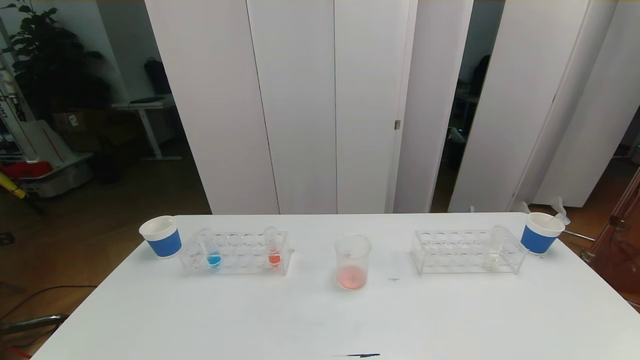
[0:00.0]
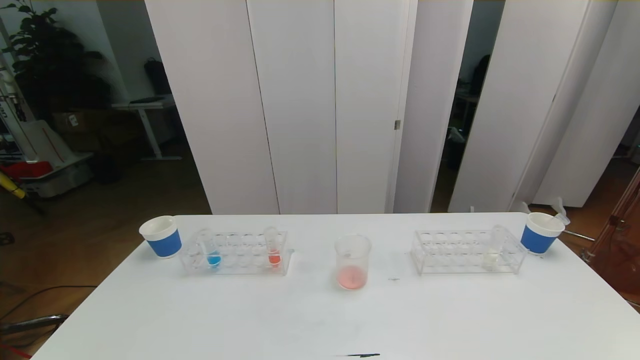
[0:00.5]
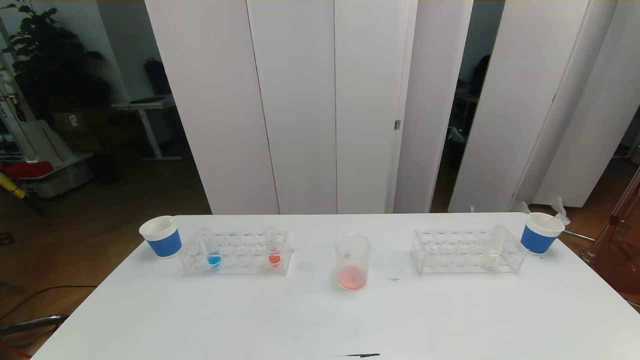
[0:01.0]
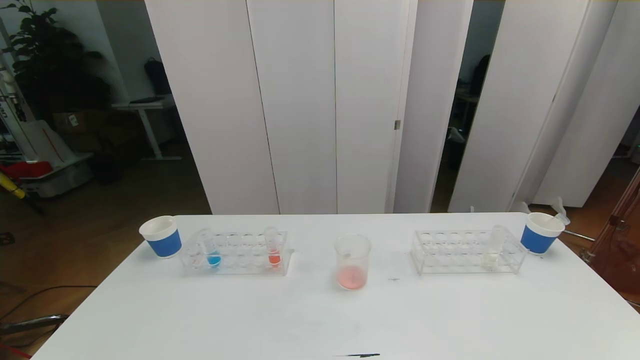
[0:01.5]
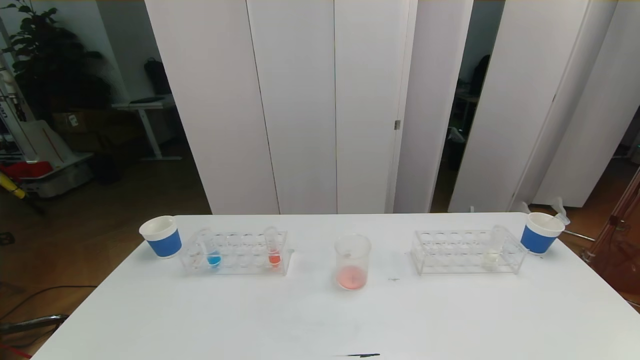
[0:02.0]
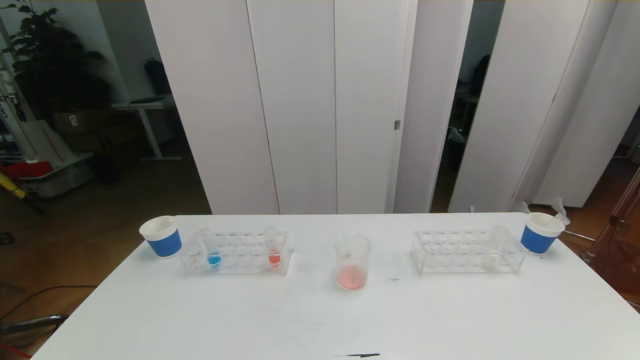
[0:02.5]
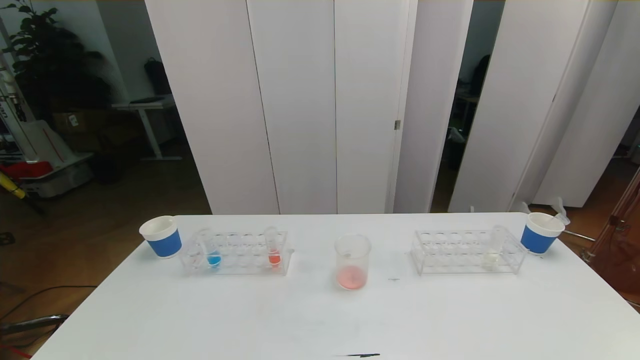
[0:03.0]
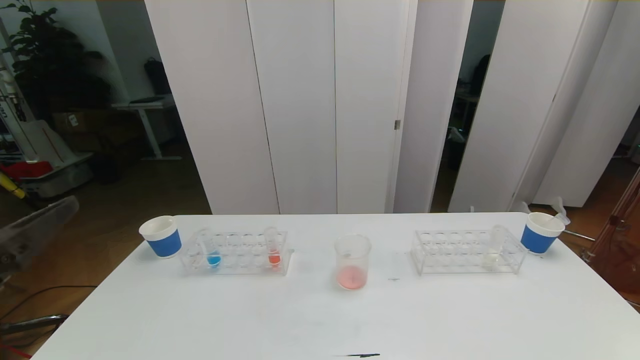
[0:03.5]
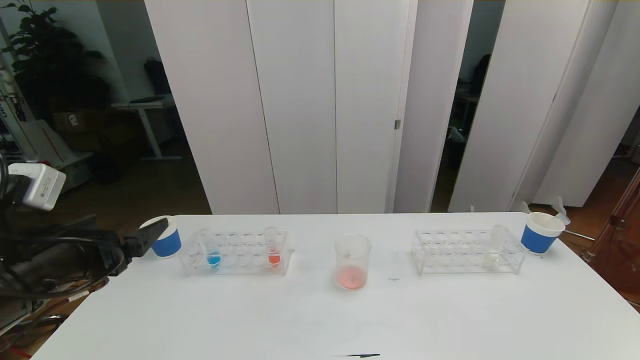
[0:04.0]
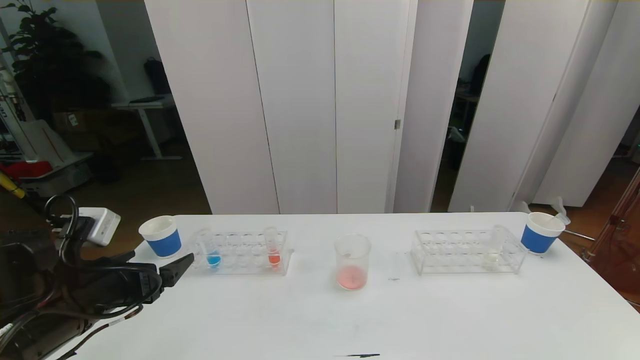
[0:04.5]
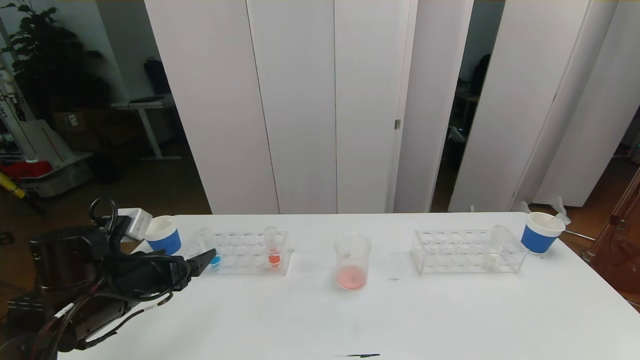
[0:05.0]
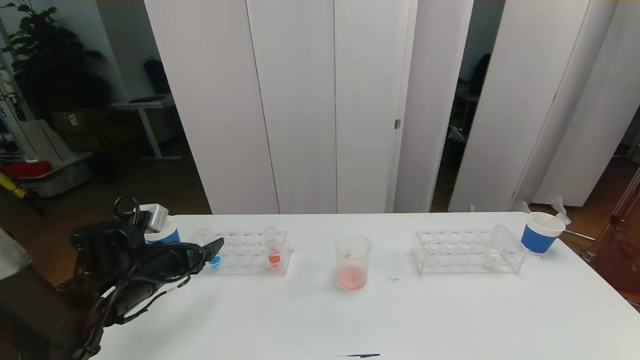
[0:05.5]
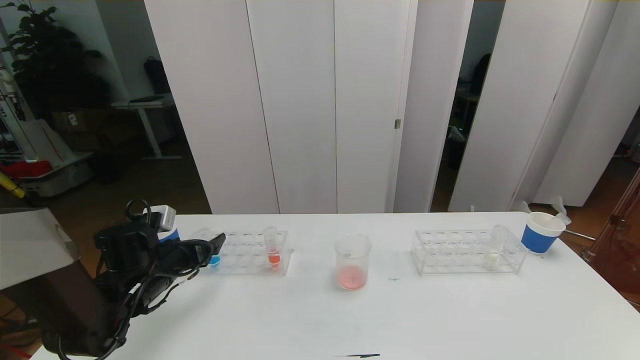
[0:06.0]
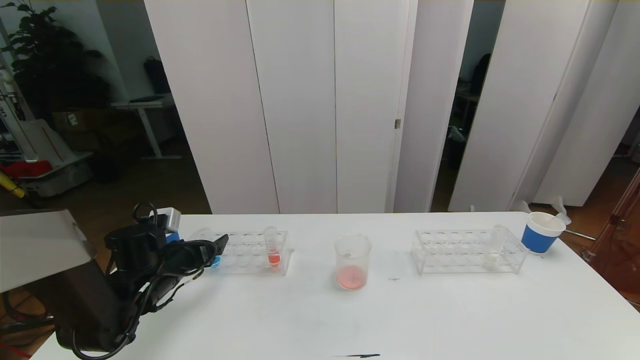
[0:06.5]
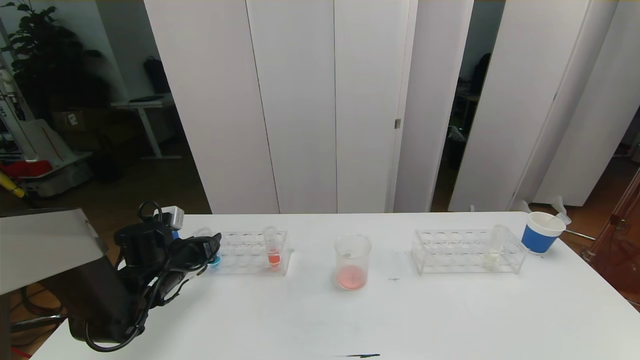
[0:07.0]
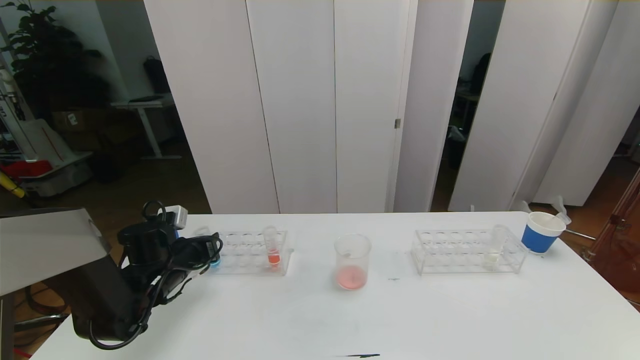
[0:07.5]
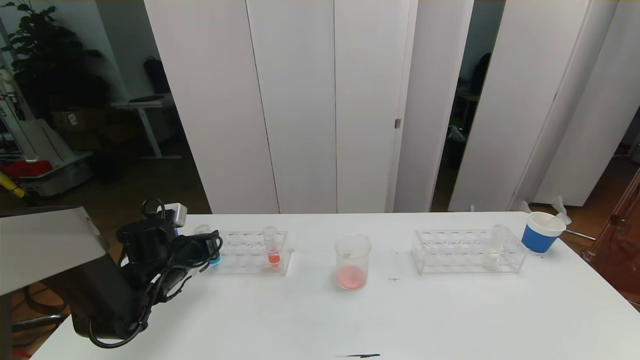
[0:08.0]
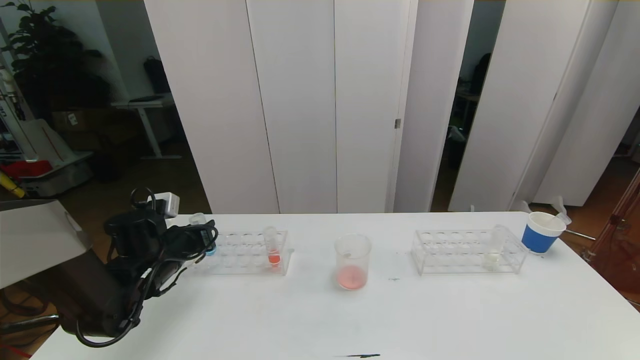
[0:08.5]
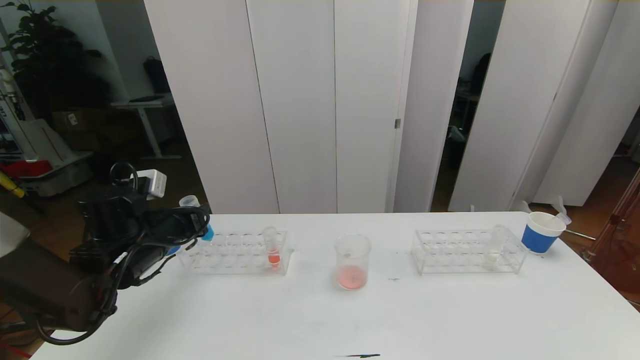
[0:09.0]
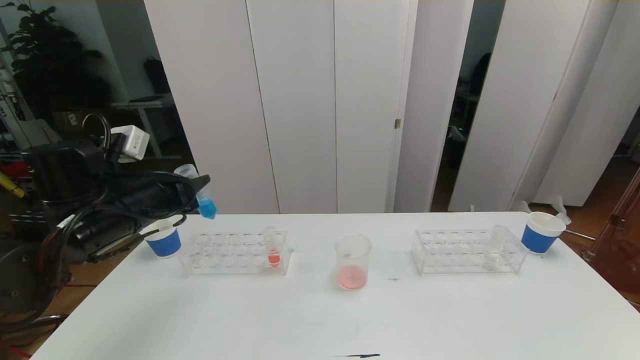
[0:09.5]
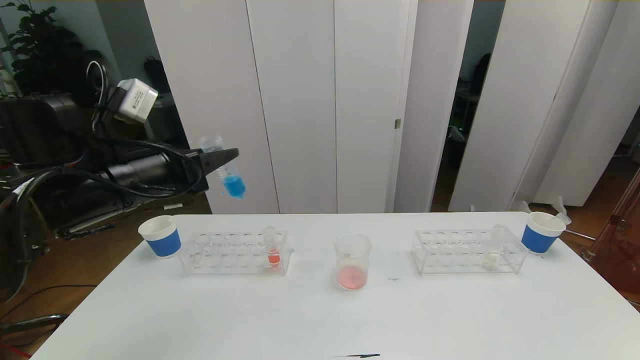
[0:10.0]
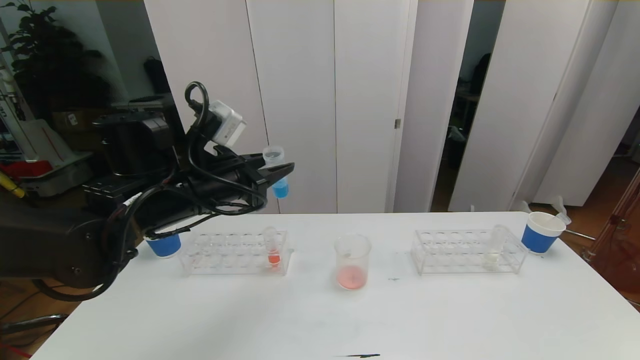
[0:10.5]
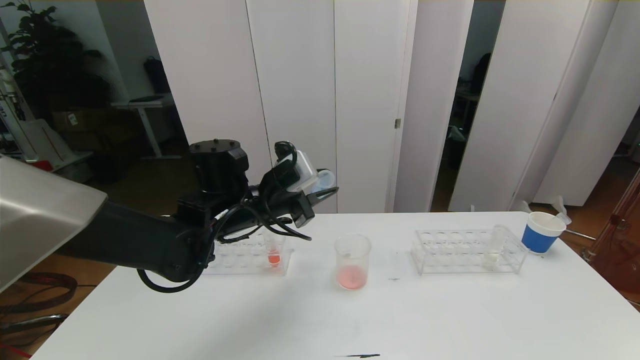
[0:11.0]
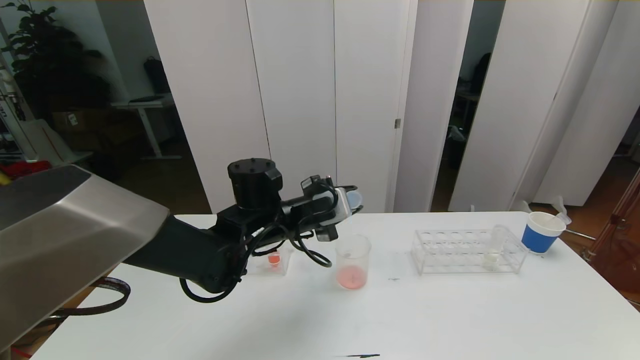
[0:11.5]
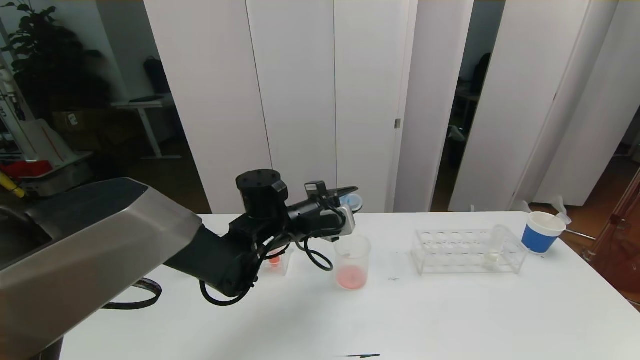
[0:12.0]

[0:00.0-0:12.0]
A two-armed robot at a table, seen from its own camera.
Task of the whole recording: pick up the test tube with red pigment the test tube with blue pigment and the test tube with white pigment by grippers and pour them into the beaker.
0:00.0 to 0:02.0: The two grippers keep their place.
0:02.0 to 0:04.0: The left gripper goes some 25 cm forward and upward.
0:04.0 to 0:06.0: The left gripper is displaced downward and forward by some 20 cm.
0:06.0 to 0:08.0: The left gripper closes.
0:08.0 to 0:10.0: The left gripper heads upward, covering about 20 cm.
0:10.0 to 0:12.0: The left gripper is displaced to the right, downward and forward by approximately 20 cm.

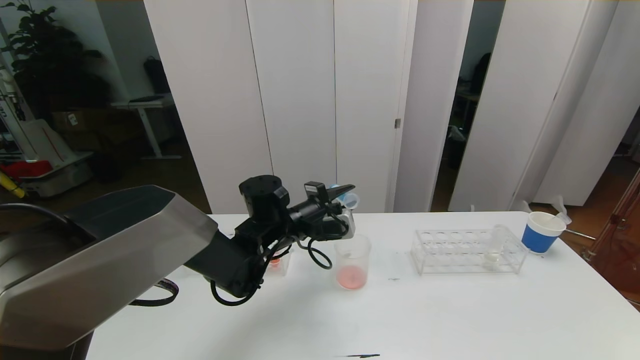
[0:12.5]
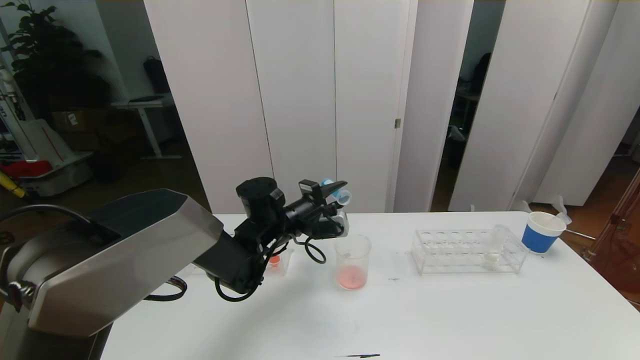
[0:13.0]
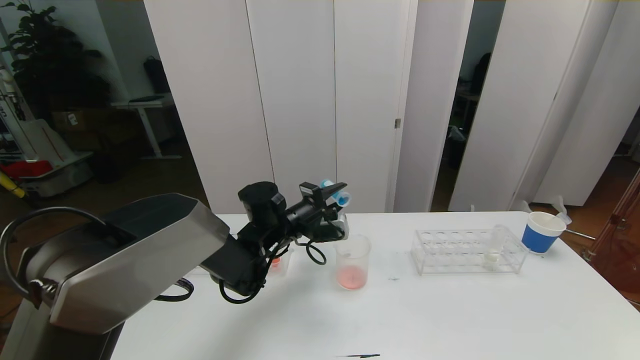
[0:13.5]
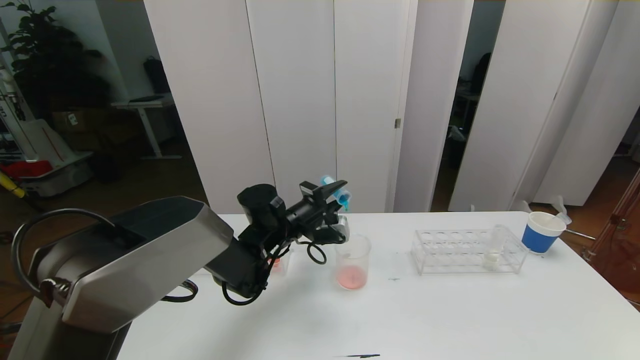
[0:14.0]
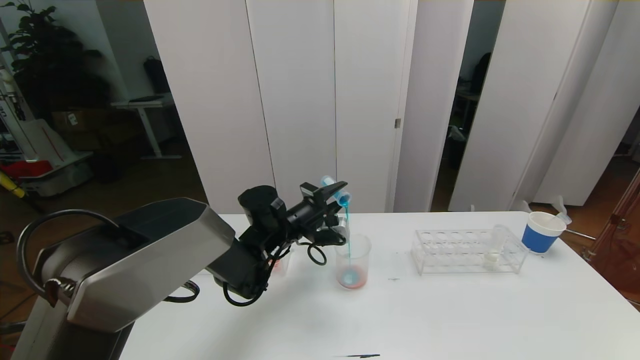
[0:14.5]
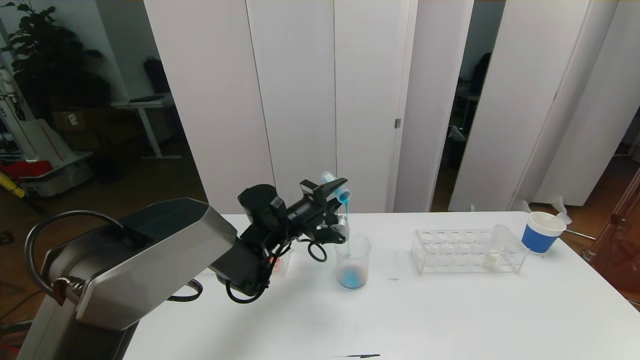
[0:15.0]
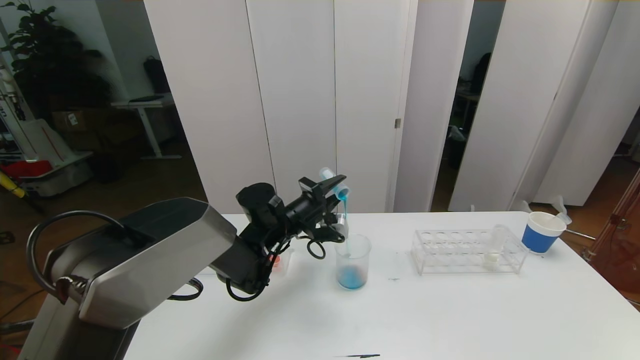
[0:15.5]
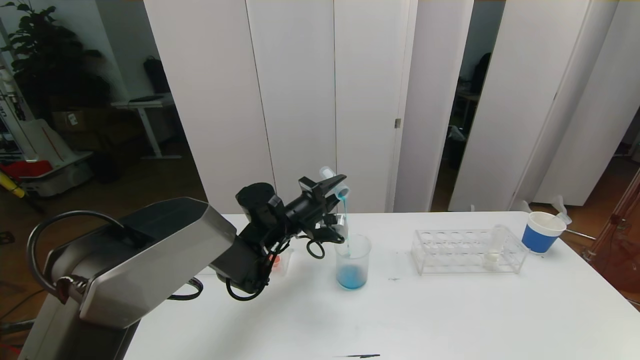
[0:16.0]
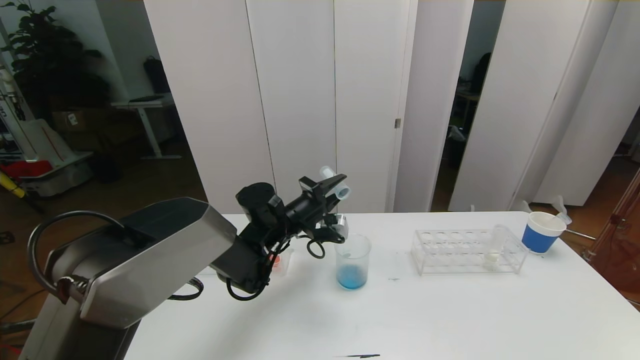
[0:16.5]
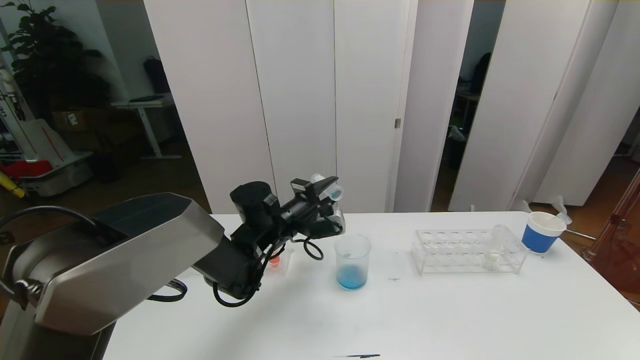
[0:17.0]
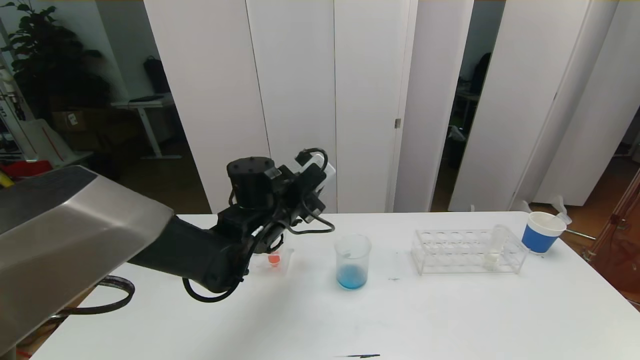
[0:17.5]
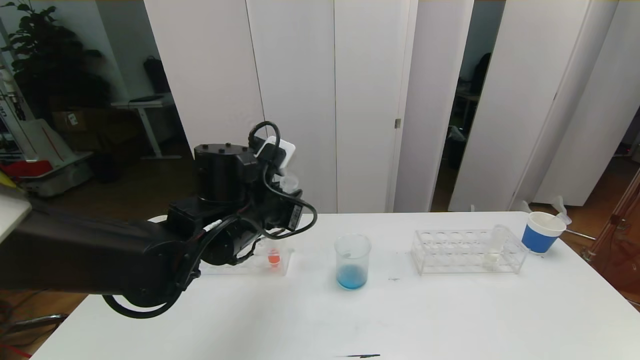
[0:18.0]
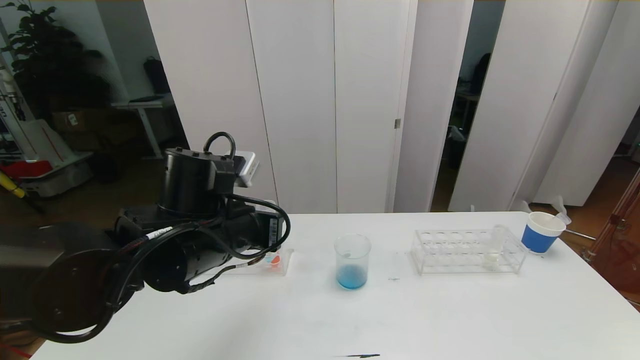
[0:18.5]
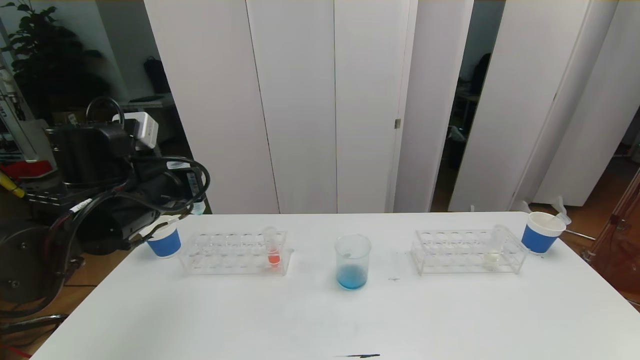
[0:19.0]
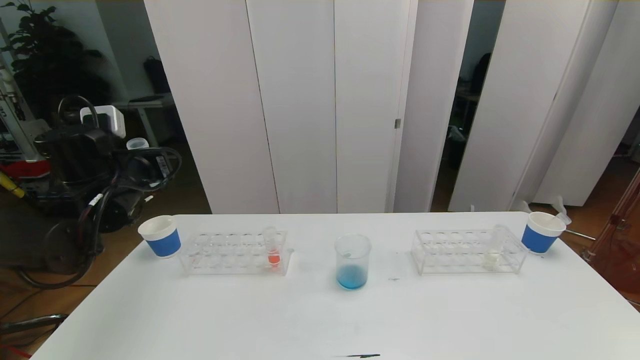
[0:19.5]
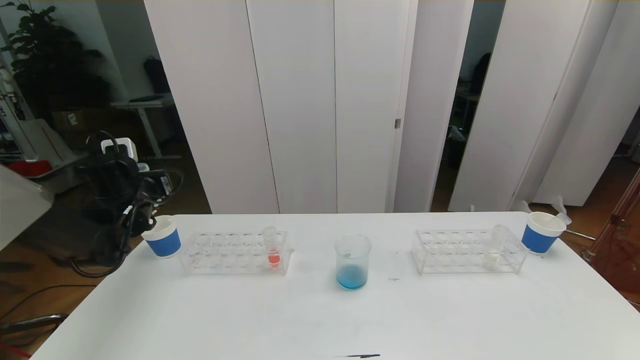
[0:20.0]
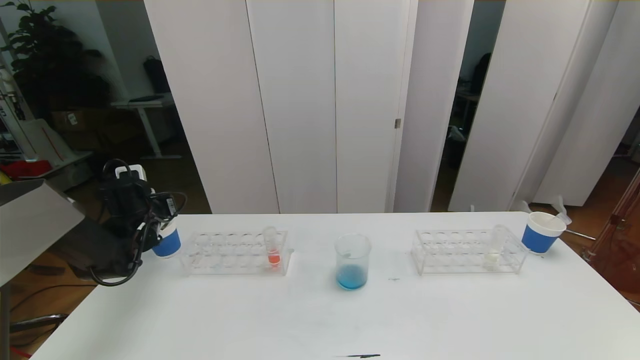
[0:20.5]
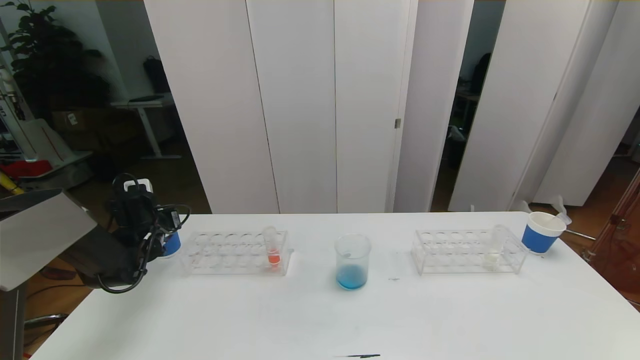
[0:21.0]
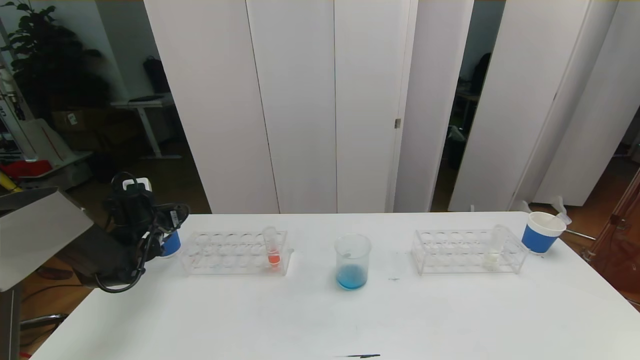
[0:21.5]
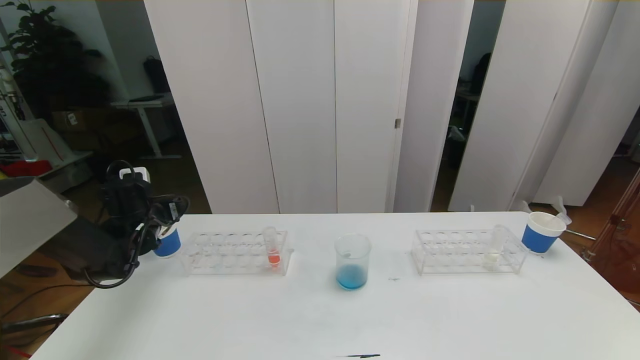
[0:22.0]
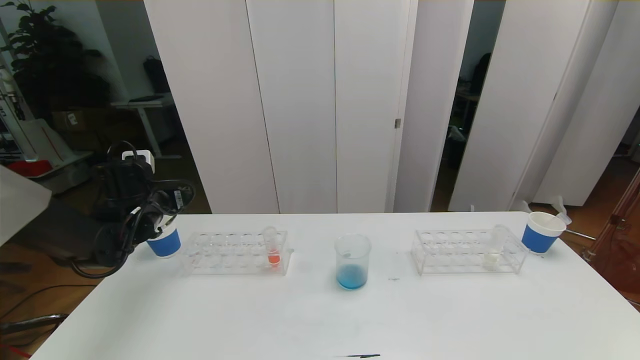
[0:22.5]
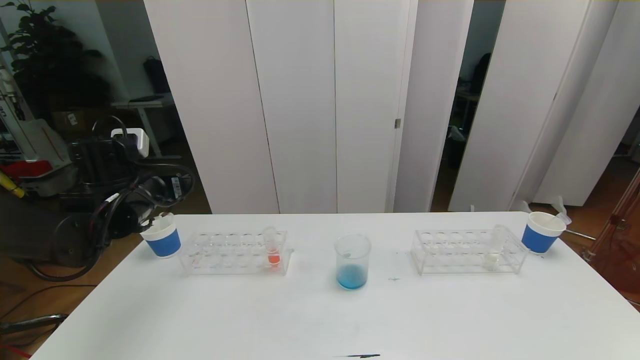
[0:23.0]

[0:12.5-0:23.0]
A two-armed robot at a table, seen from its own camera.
Task of the whole recording: pick up the test tube with red pigment the test tube with blue pigment and the test tube with white pigment by grippers and pour them into the beaker.
0:12.5 to 0:14.5: There are only small adjustments of the grippers.
0:14.5 to 0:16.5: The grippers move only a little.
0:16.5 to 0:19.0: The left gripper shifts about 25 cm to the left, upward and backward.
0:19.0 to 0:21.0: The left gripper is displaced downward, to the left and forward by roughly 25 cm.
0:21.0 to 0:23.0: The left gripper is displaced upward, to the right and backward by approximately 15 cm, and opens.
